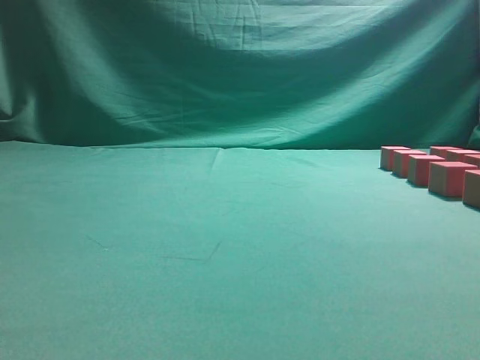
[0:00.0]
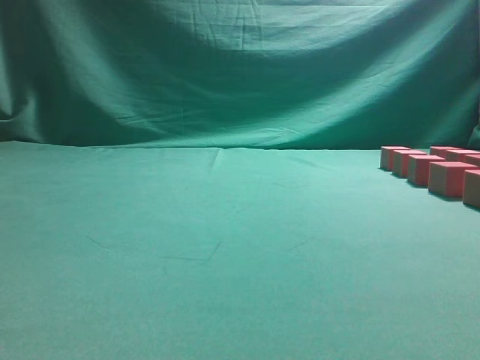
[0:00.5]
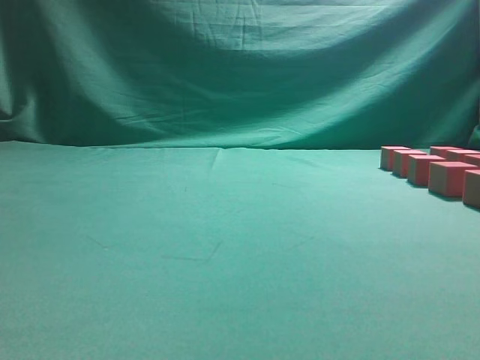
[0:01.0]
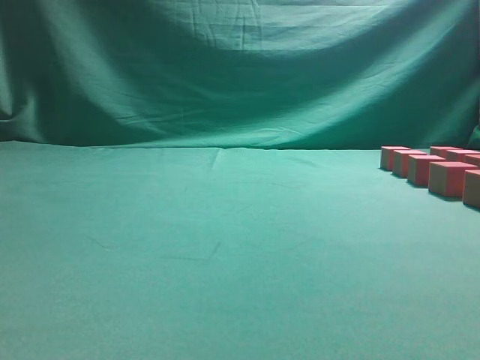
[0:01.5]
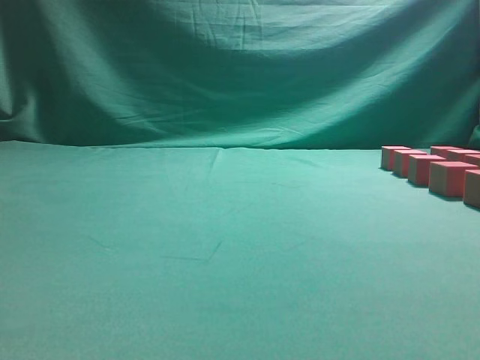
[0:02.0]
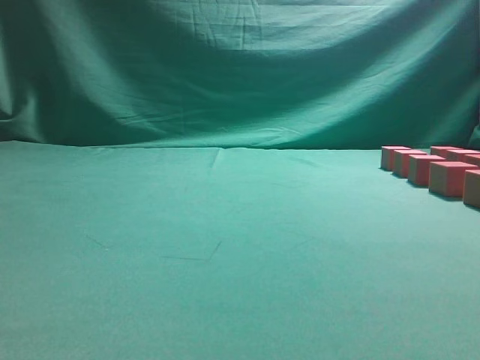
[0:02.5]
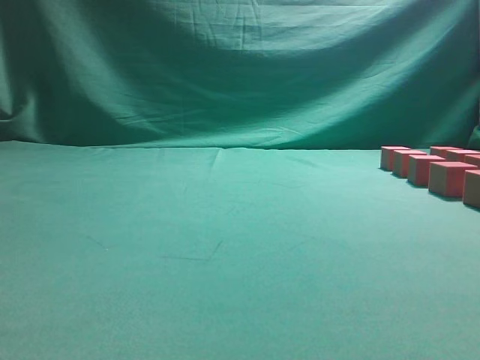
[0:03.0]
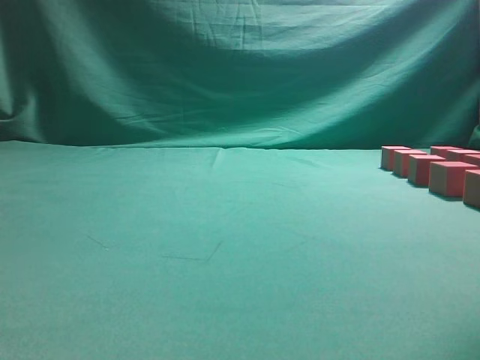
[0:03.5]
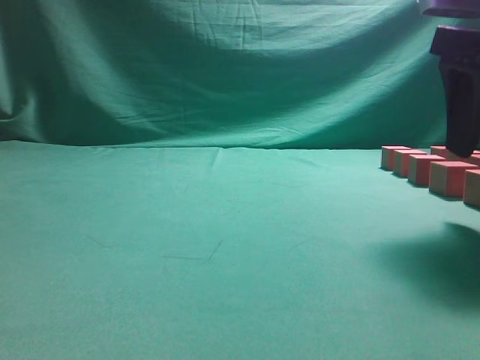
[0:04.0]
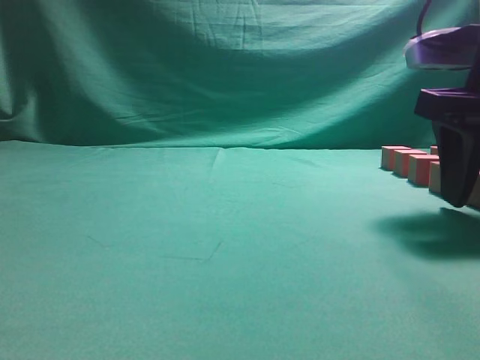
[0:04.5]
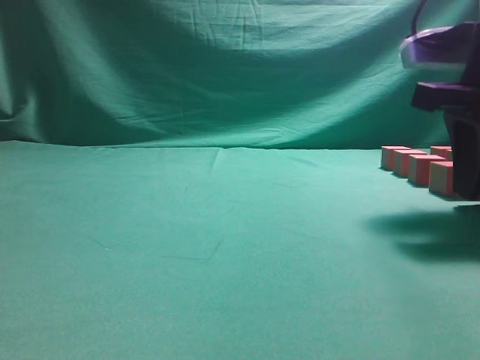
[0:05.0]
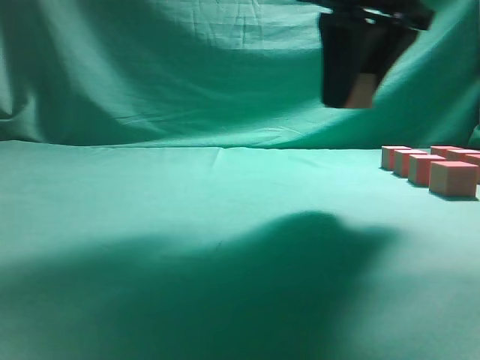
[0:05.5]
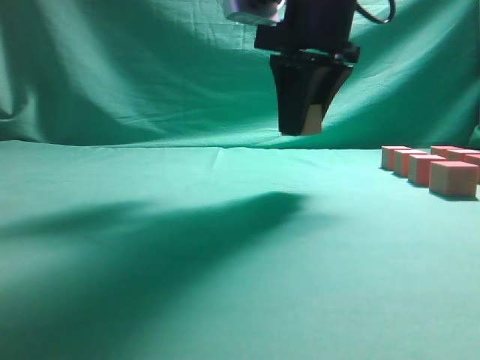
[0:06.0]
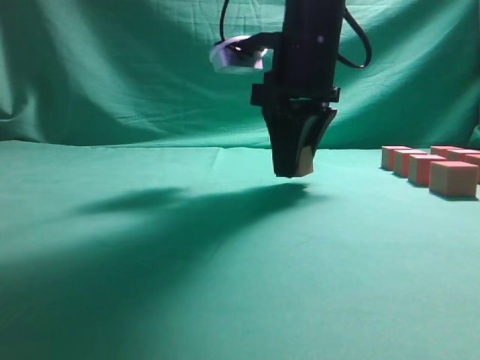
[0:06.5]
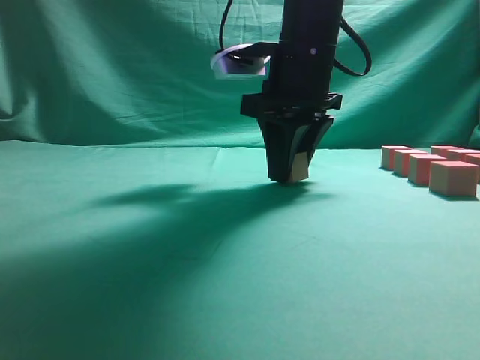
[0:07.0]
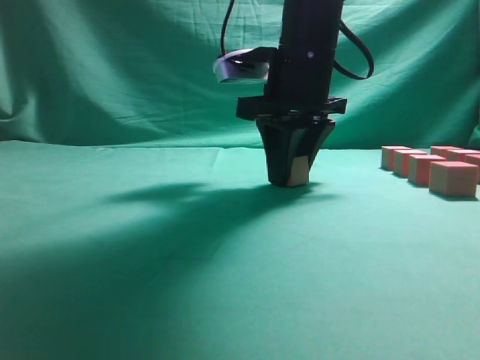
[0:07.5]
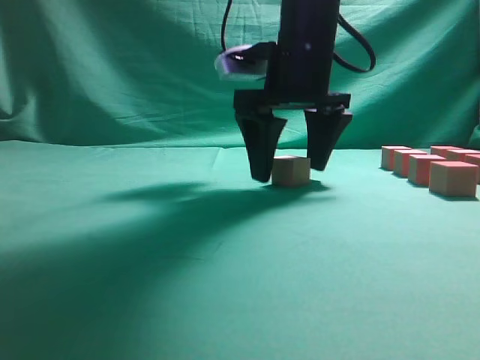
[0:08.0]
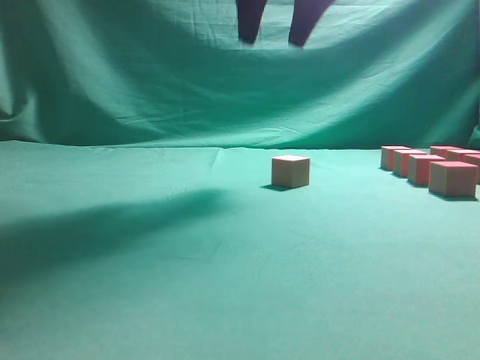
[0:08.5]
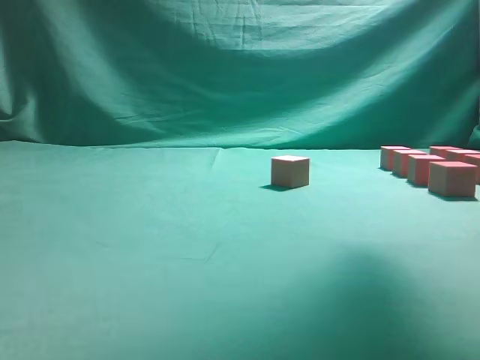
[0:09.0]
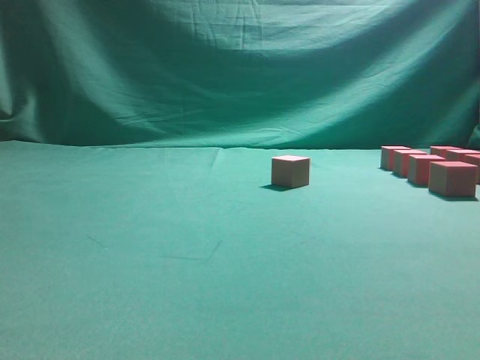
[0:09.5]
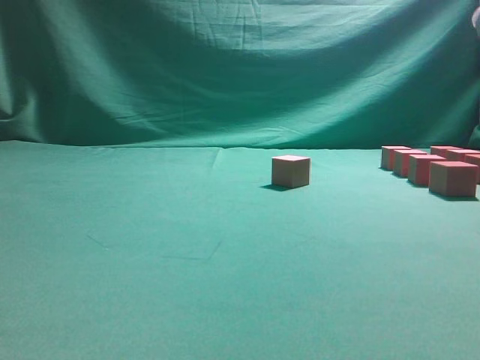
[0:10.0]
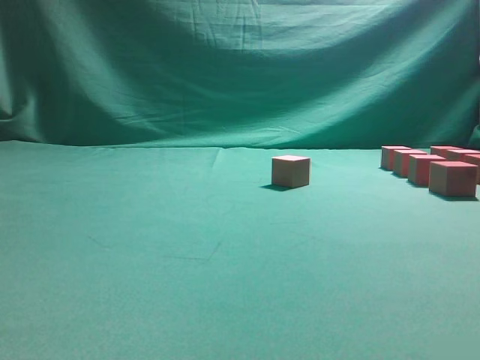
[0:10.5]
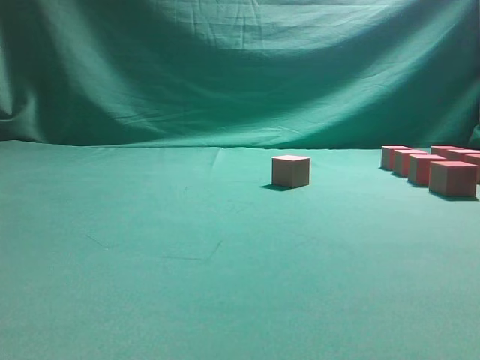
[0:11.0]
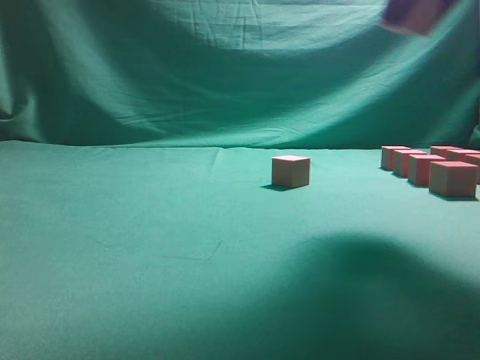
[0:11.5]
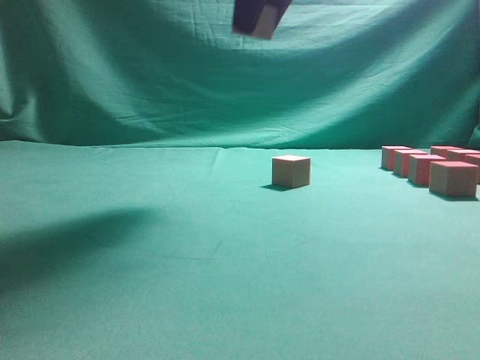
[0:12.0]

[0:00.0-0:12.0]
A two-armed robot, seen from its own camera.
Task of the whole recording: pick up the multiple cubes in two columns one by one and place them in another position on the table.
Step, 0:00.0 to 0:05.0: Pick up the block on the table.
Step, 0:05.5 to 0:08.0: Place the block at the correct position to assemble the letter S.
Step, 0:08.5 to 0:11.0: Pick up the block on the table.
0:02.0 to 0:04.0: The right gripper travels forward by roughly 25 cm, and opens up.
0:04.0 to 0:06.0: The right gripper moves to the left and forward, roughly 15 cm, and closes up.
0:06.0 to 0:08.0: The right gripper moves approximately 5 cm, and opens.
0:08.0 to 0:10.0: The right gripper shifts about 25 cm to the right and backward.
0:10.0 to 0:12.0: The right gripper heads to the left and upward, covering approximately 25 cm, and closes its fingers.

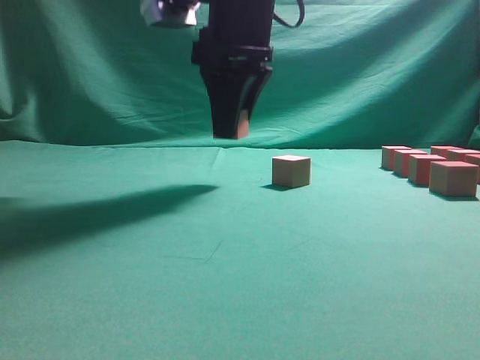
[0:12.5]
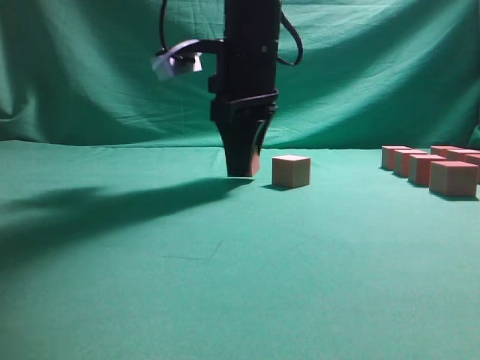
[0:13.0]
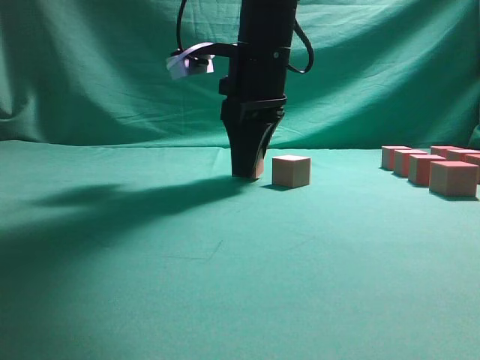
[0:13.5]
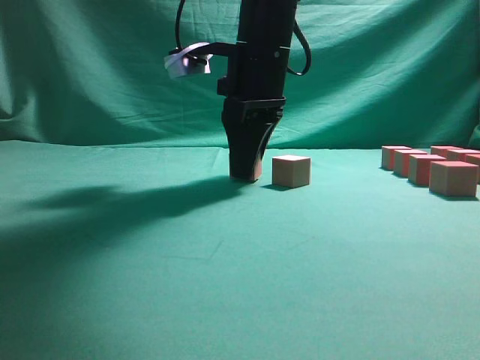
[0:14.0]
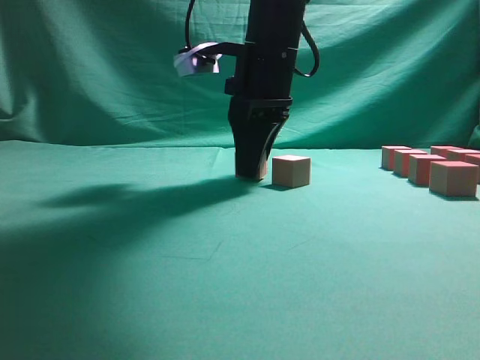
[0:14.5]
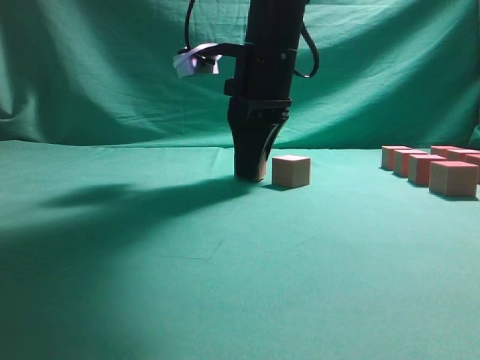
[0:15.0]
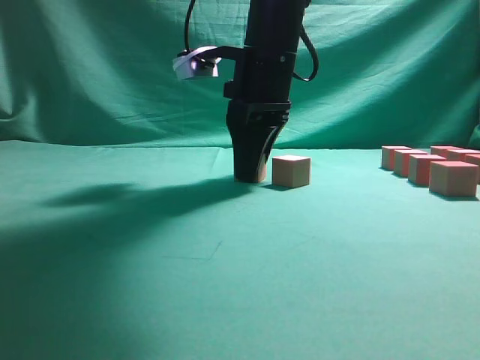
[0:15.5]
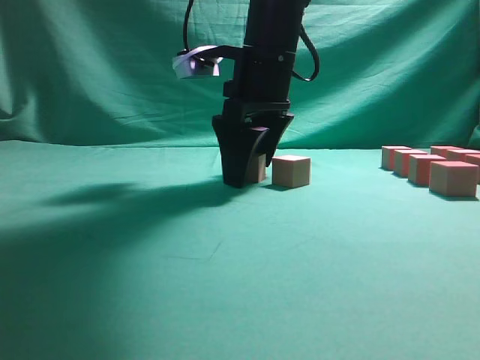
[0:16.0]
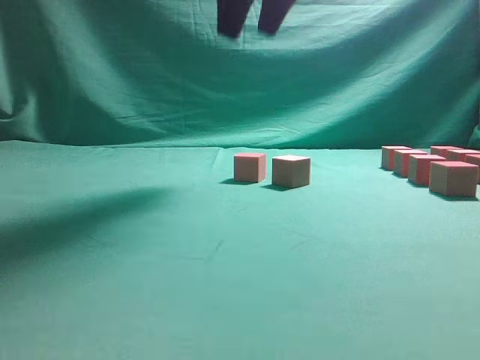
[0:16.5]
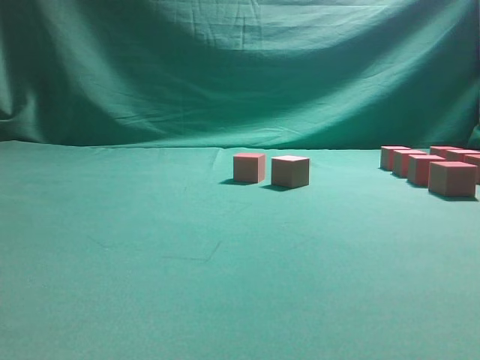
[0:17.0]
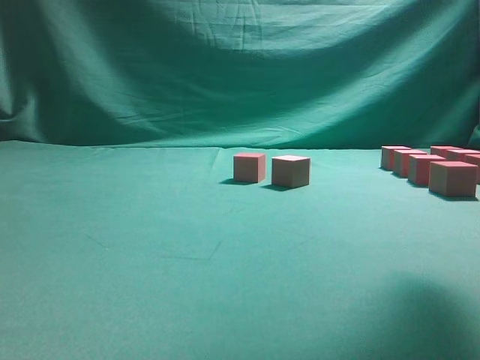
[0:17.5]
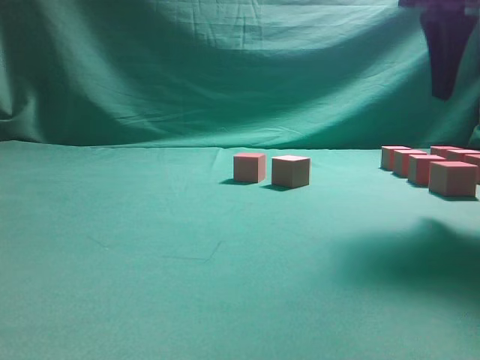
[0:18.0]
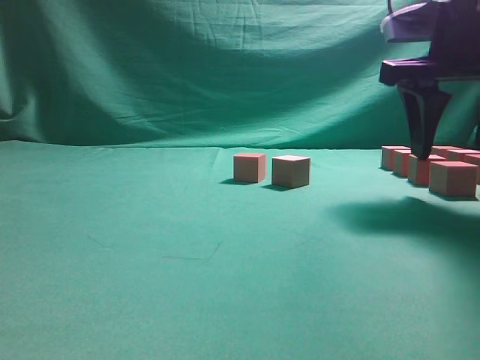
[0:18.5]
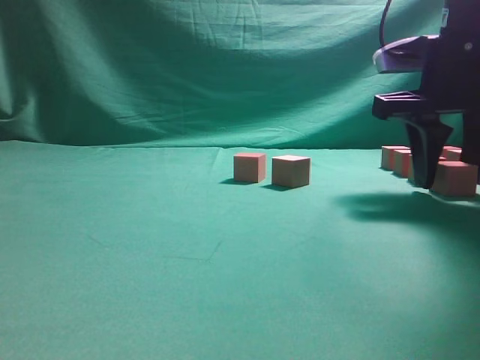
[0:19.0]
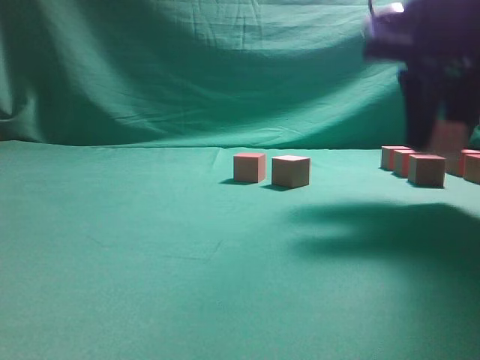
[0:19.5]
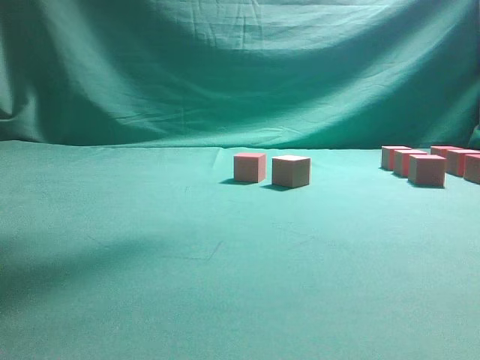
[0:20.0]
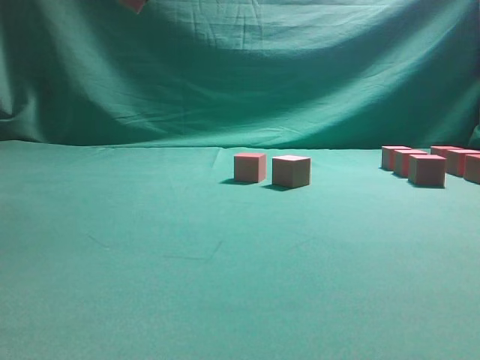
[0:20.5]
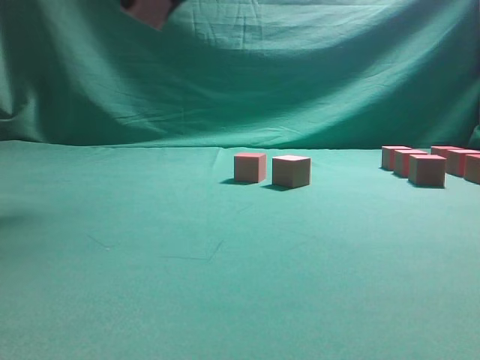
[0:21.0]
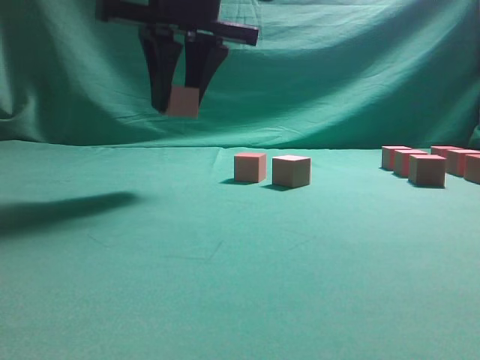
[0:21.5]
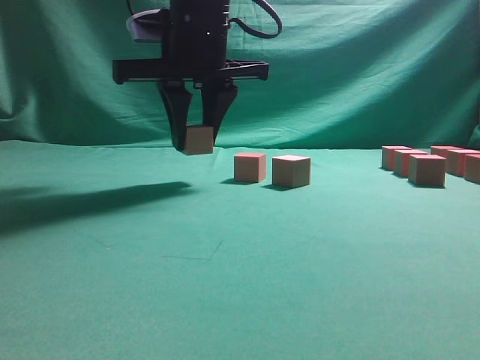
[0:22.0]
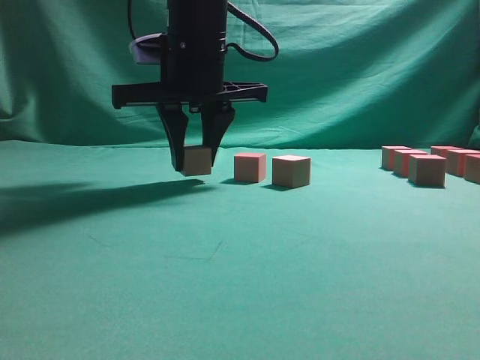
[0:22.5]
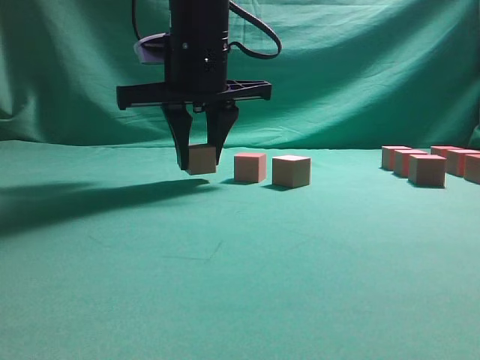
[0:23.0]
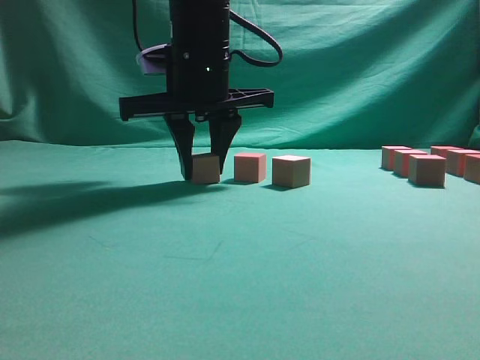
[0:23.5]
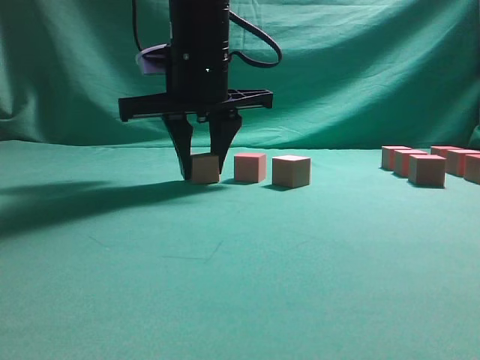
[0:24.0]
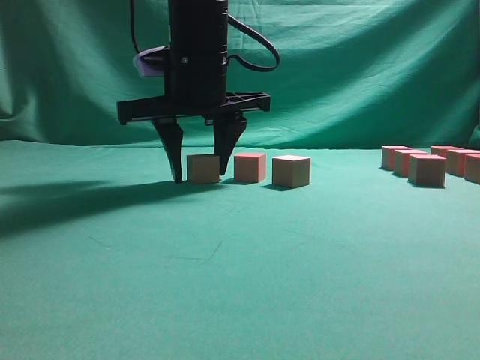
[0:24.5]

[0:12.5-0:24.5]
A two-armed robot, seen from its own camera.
Task of the whole recording: pick up the multiple cubes in two columns one by one and place them in another position on the table.
Step, 0:12.5 to 0:16.0: Place the block at the correct position to assemble the letter S.
Step, 0:16.5 to 0:19.0: Pick up the block on the table.
0:12.5 to 0:14.5: The right gripper shifts by approximately 5 cm.
0:14.5 to 0:16.5: The right gripper moves upward, about 15 cm, and opens.
0:16.5 to 0:18.5: The right gripper moves to the right and downward, some 20 cm.
0:18.5 to 0:20.5: The right gripper heads to the left and upward, covering roughly 25 cm, and closes.
0:20.5 to 0:22.5: The right gripper is displaced downward by approximately 15 cm.
0:22.5 to 0:24.5: Both grippers stay about where they are.

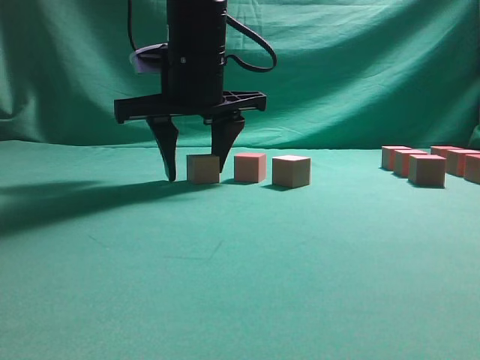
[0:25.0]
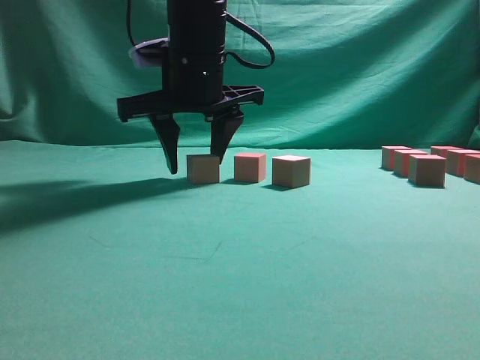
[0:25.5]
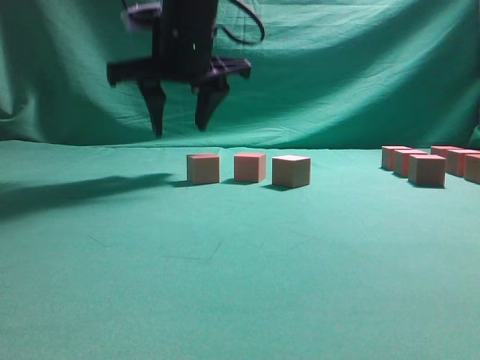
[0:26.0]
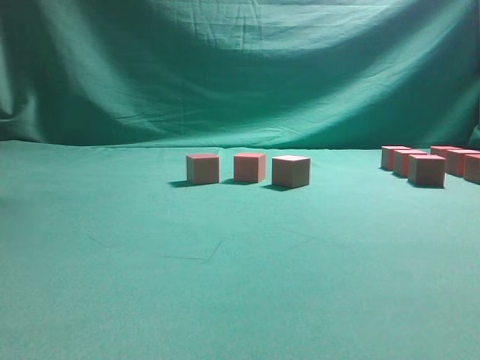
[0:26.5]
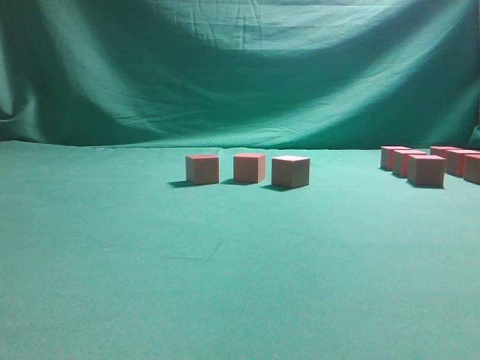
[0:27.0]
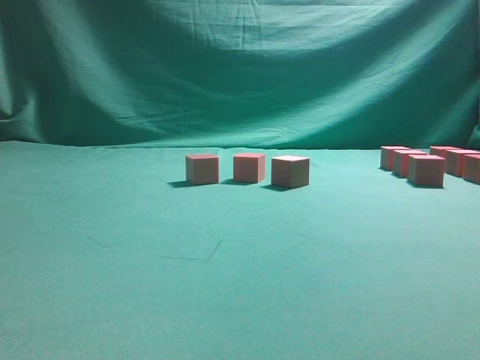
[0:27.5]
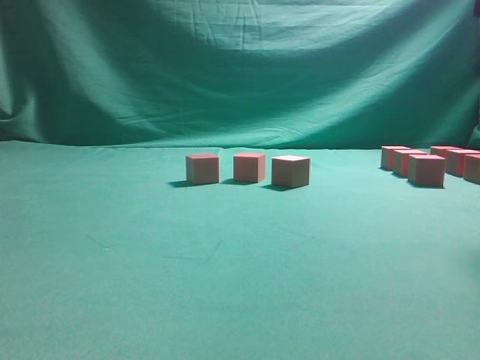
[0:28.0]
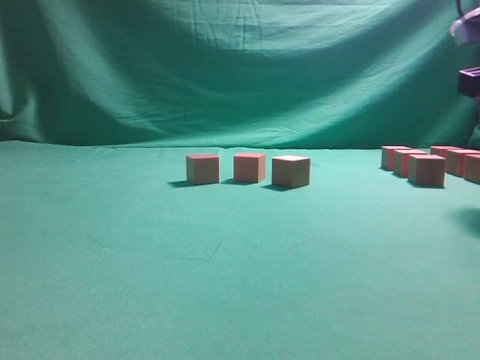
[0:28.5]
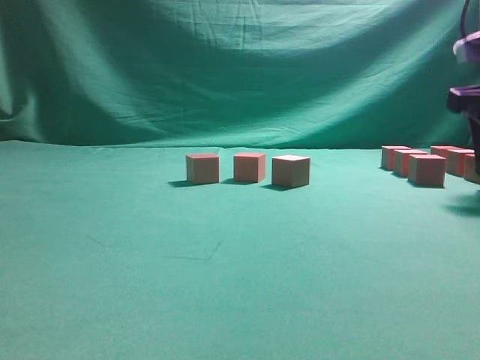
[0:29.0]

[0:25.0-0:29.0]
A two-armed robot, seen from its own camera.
Task of the whole recording: pick up the multiple cubes in two columns one by one and place them in another position on the table.
0:25.0 to 0:27.0: The right gripper shifts some 30 cm upward.
0:27.0 to 0:29.0: The right gripper is displaced downward and to the right by approximately 35 cm.
